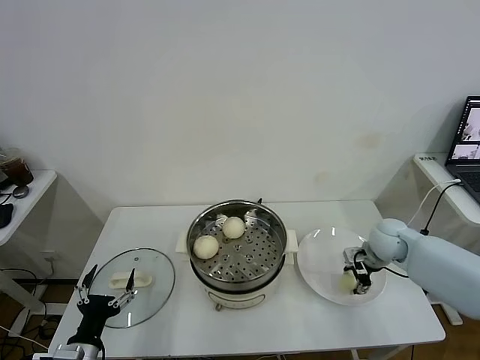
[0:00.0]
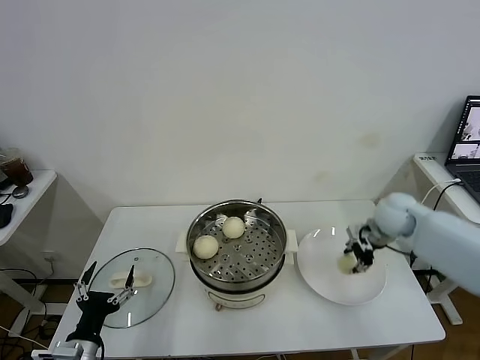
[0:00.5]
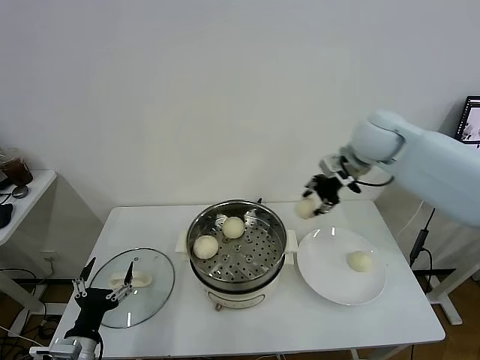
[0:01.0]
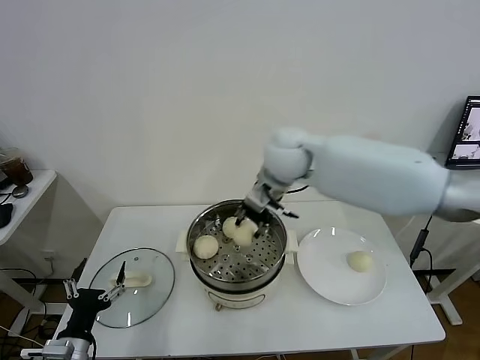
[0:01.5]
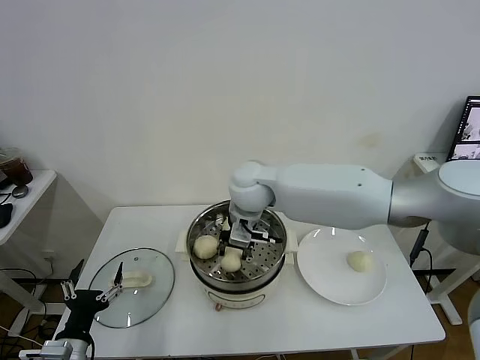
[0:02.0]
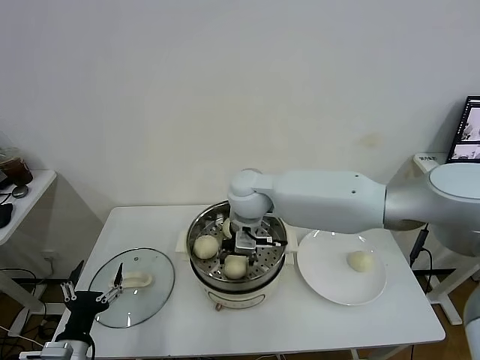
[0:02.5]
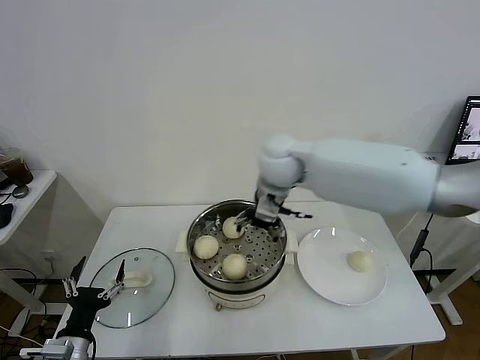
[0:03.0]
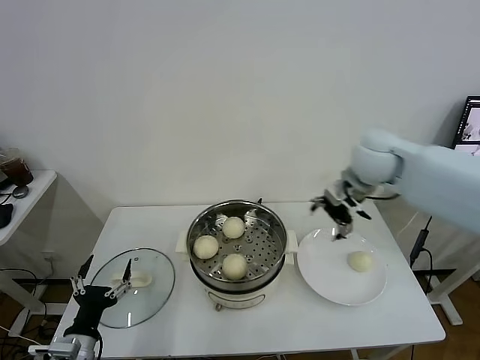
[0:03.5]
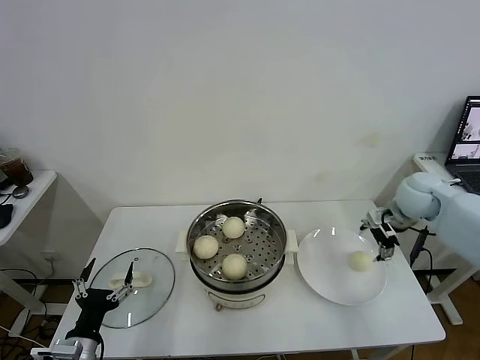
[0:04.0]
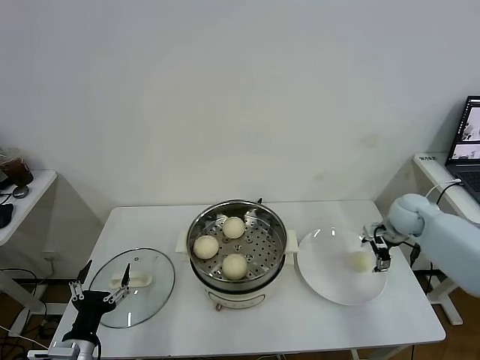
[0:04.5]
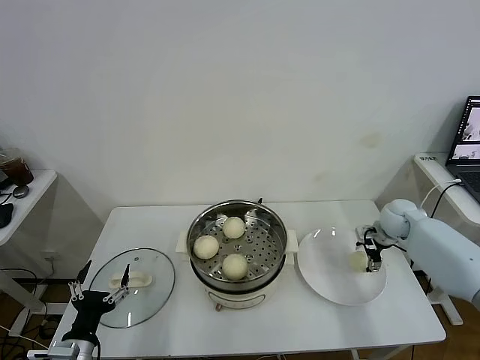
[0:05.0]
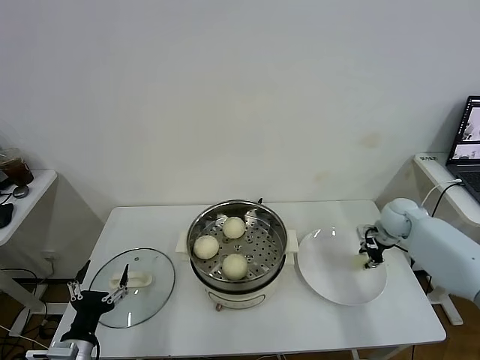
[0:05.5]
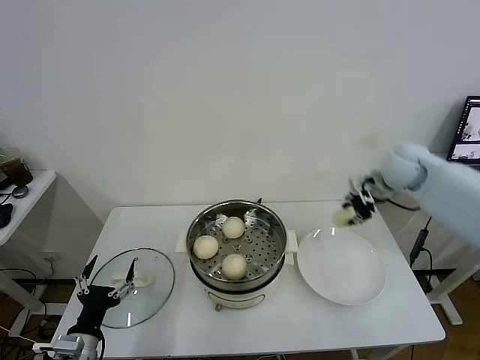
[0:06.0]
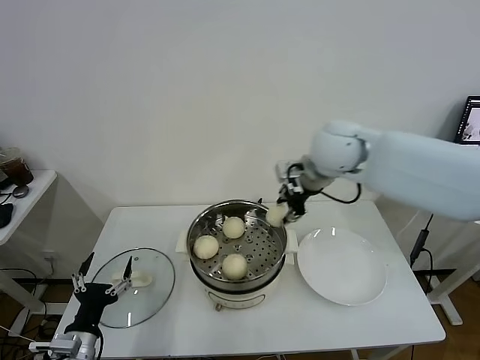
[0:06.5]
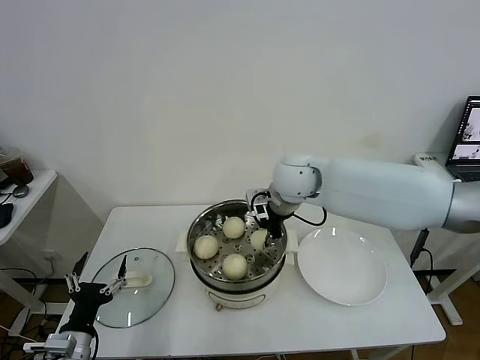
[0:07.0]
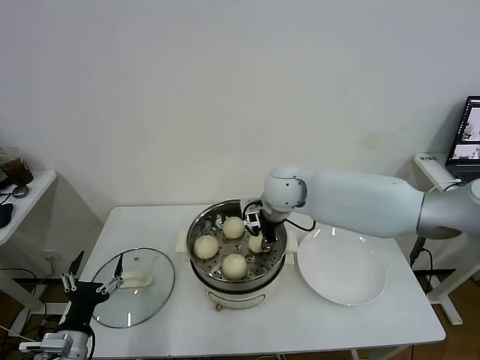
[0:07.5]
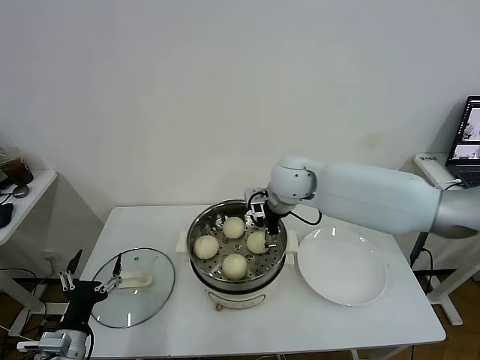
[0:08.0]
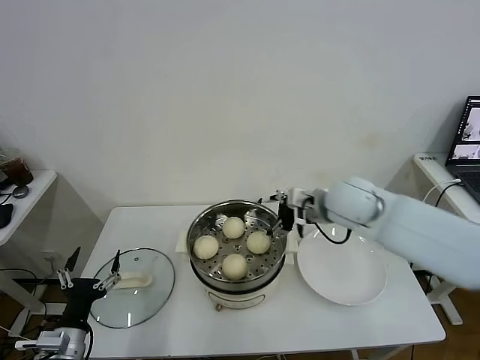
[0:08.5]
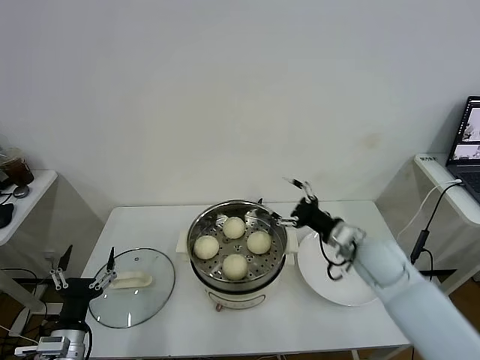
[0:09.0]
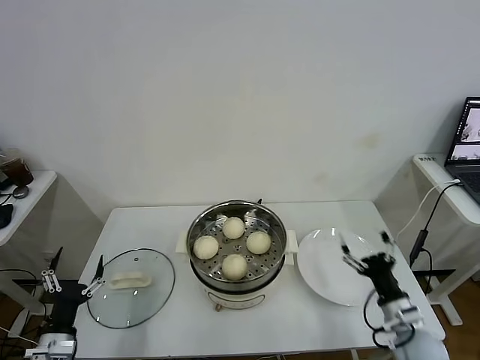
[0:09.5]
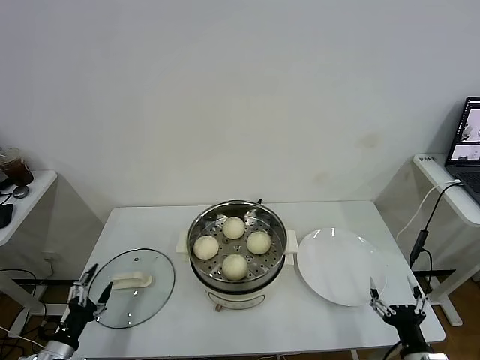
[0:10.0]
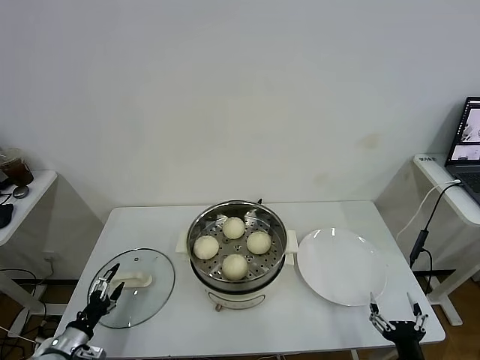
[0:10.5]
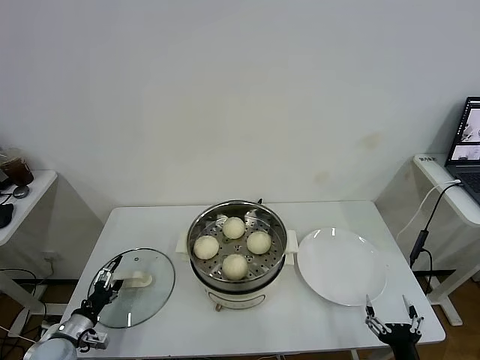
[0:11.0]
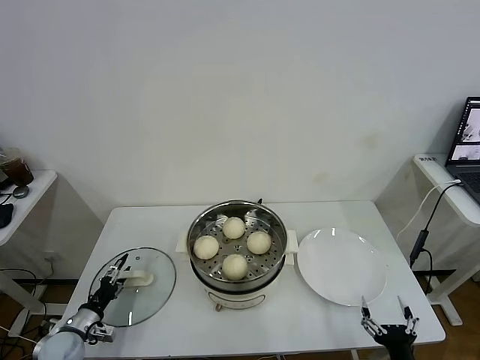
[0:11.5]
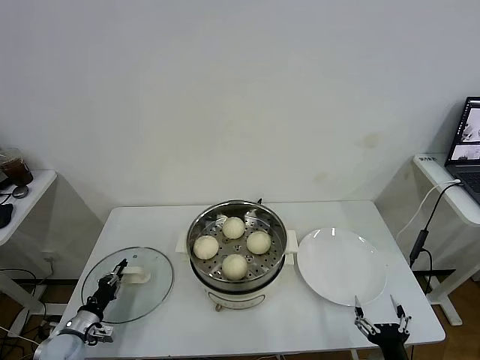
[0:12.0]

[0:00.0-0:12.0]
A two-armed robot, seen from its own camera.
Task of the whole recording: take steamed baozi put them in steamer.
Step, 0:00.5 to 0:02.5: Place the baozi on the steamer with right gripper.
Step, 0:03.0 to 0:05.0: Grasp the baozi in the plate with right gripper.
Step, 0:06.0 to 0:08.0: Place the baozi on the steamer with right gripper.
Step, 0:08.5 to 0:12.0: Grasp the pot lid with left gripper.
0:00.0 to 0:02.0: The right gripper is displaced to the left and upward by about 35 cm, and closes.
0:02.0 to 0:04.0: The right gripper shifts approximately 35 cm to the right, and opens.
0:04.0 to 0:06.0: The right gripper goes downward and returns, some 10 cm each way, and closes up.
0:06.0 to 0:08.0: The right gripper goes approximately 25 cm to the left, and opens.
0:08.0 to 0:10.0: The left gripper goes about 10 cm to the left and downward, while the right gripper is displaced backward, to the right and downward by some 50 cm.
0:10.0 to 0:12.0: The right gripper ends up about 5 cm from where it was. The left gripper is displaced forward and downward by about 10 cm, and closes its fingers.

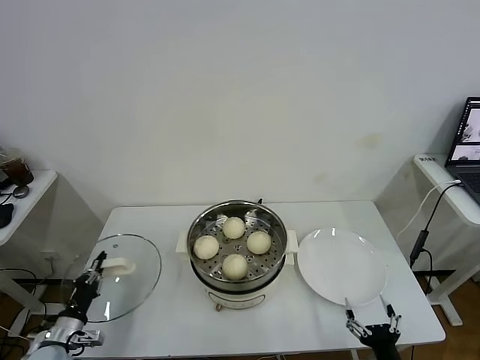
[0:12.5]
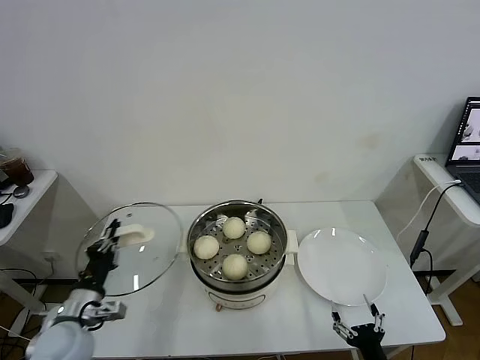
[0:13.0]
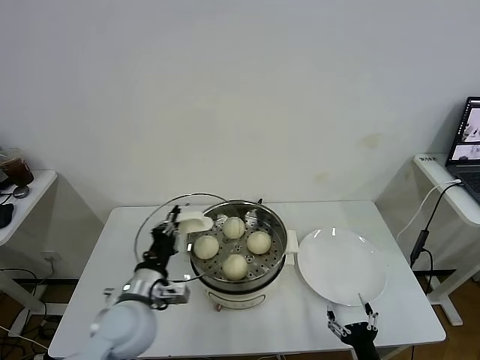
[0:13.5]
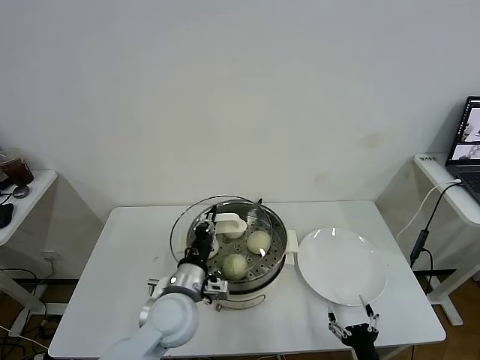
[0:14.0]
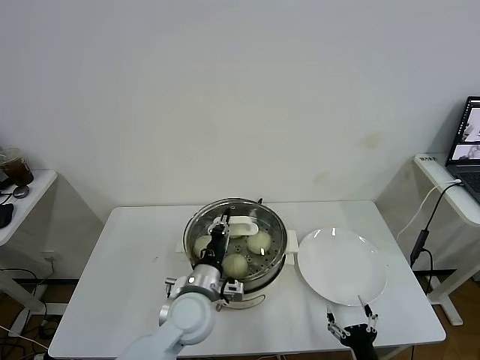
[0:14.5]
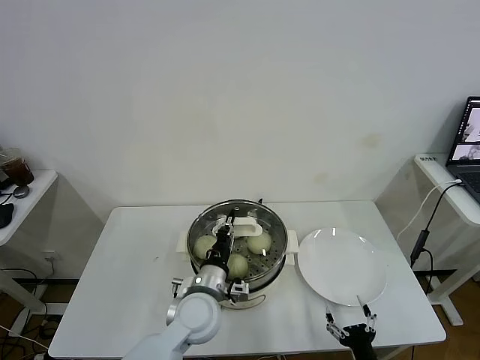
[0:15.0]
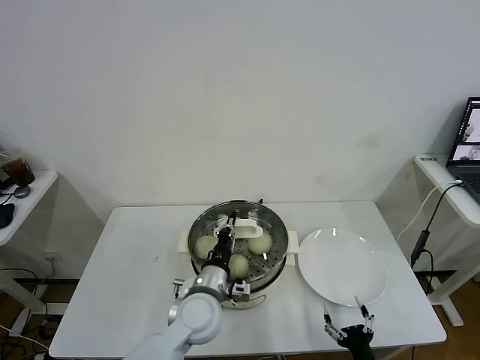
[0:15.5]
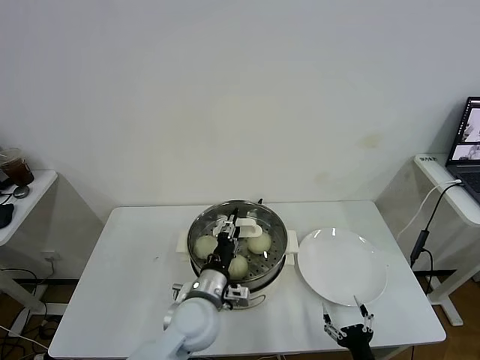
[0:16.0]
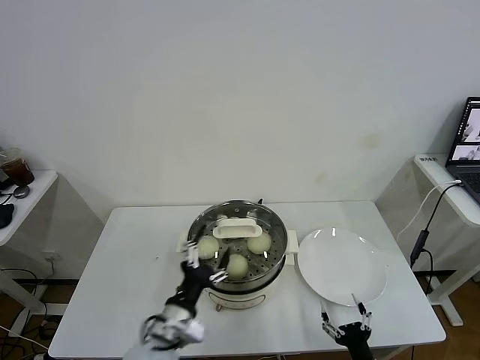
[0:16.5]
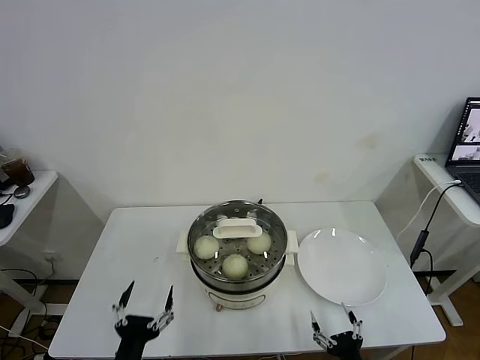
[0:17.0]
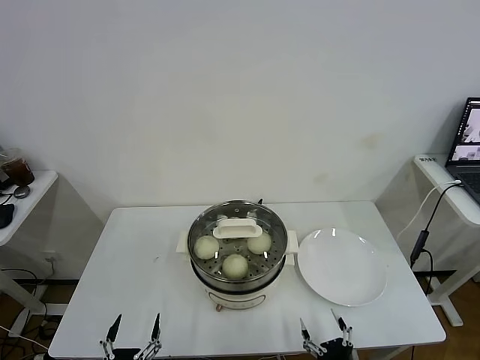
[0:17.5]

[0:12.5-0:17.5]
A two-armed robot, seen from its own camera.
Task of the whole recording: take steamed baozi put them in steamer.
Step, 0:12.5 to 0:16.0: Place the pot lid on the steamer with left gripper.
0:12.5 to 0:15.0: The right gripper changes place by about 5 cm; the left gripper shifts approximately 35 cm to the right.
0:15.0 to 0:17.5: The left gripper travels backward and to the left by about 30 cm, and opens.
